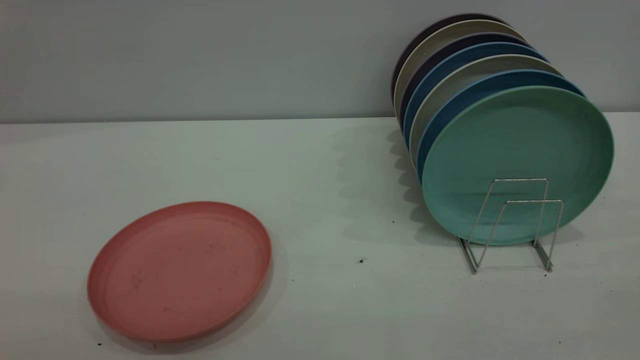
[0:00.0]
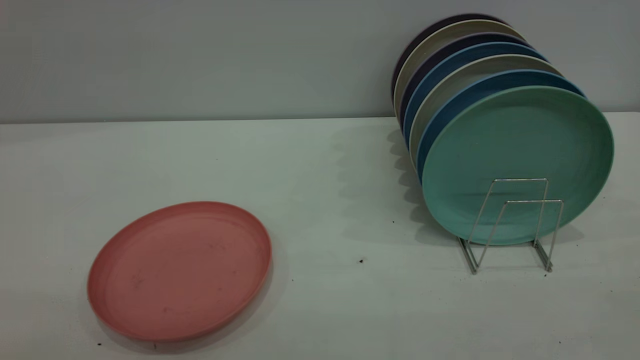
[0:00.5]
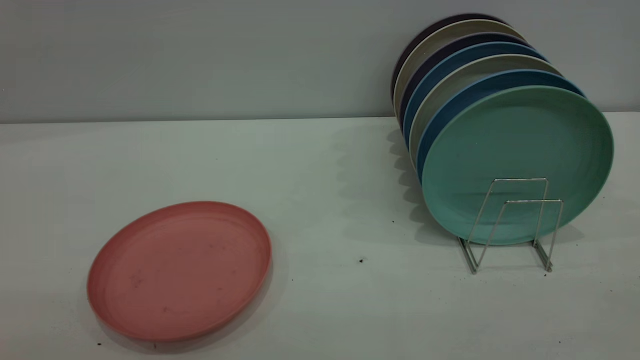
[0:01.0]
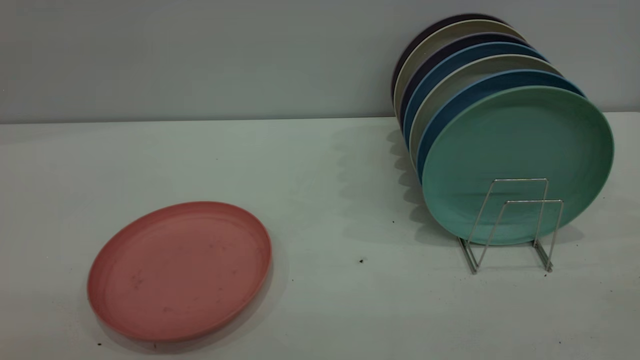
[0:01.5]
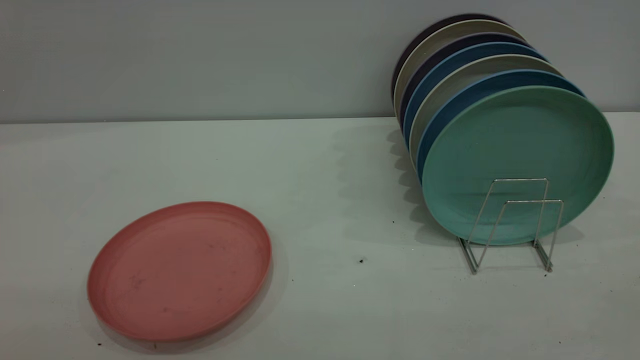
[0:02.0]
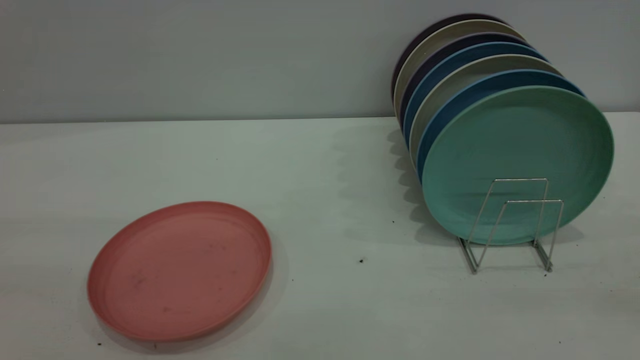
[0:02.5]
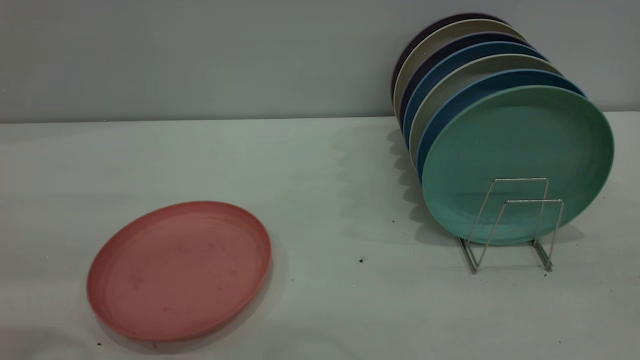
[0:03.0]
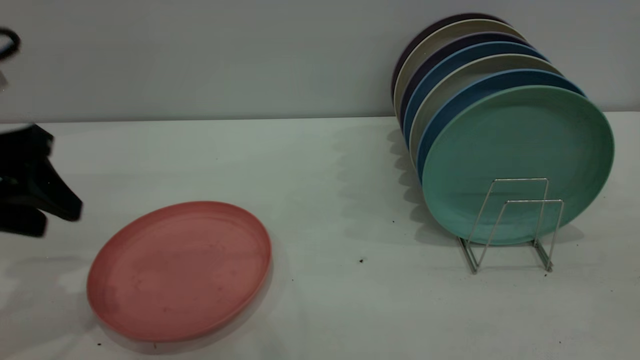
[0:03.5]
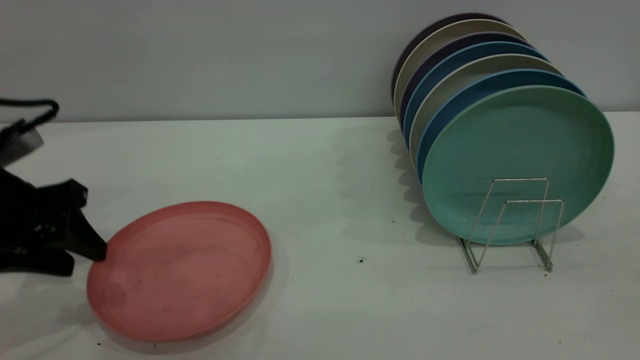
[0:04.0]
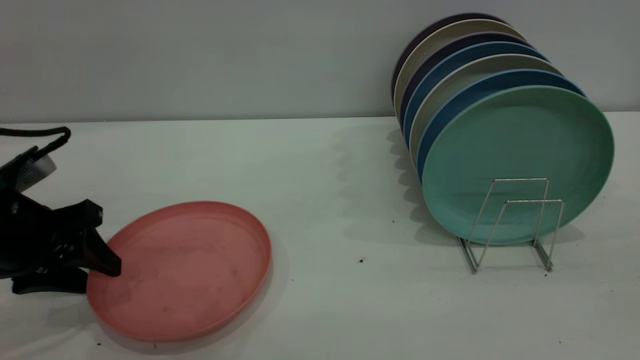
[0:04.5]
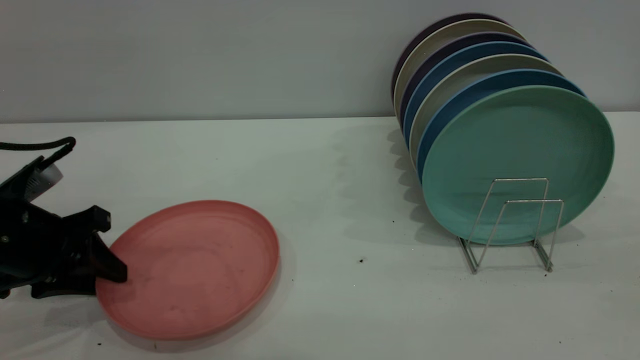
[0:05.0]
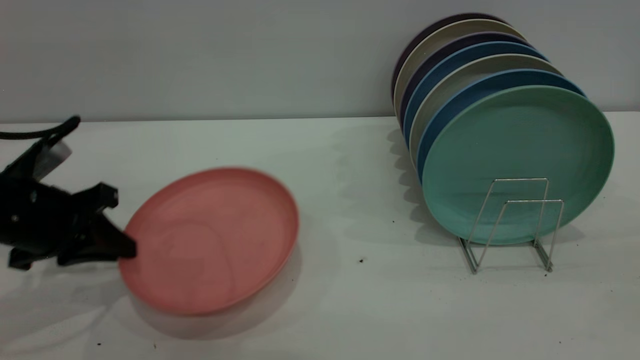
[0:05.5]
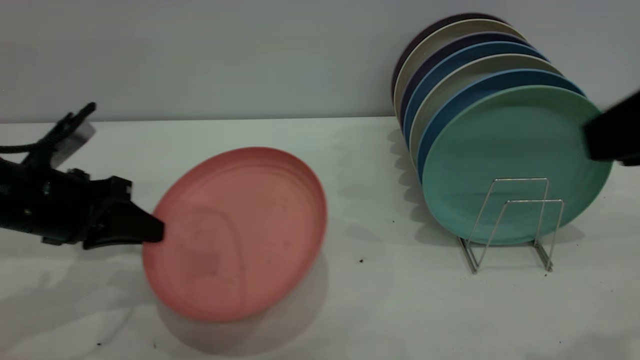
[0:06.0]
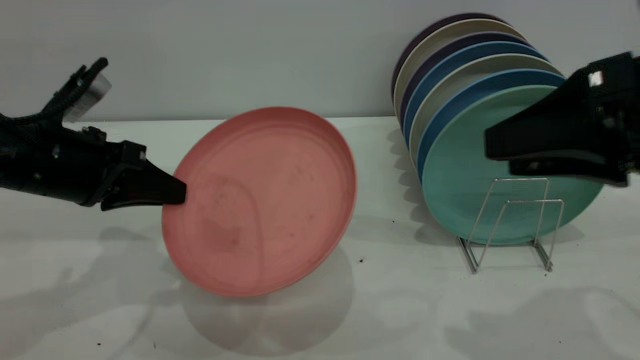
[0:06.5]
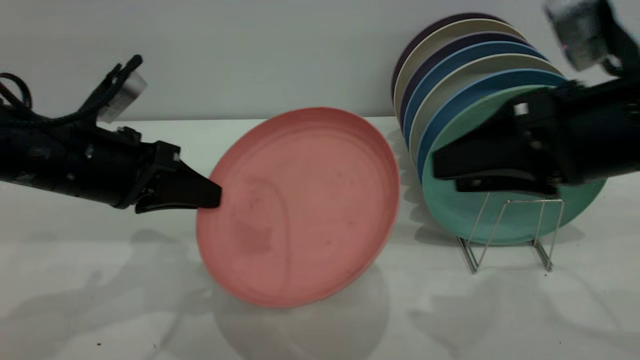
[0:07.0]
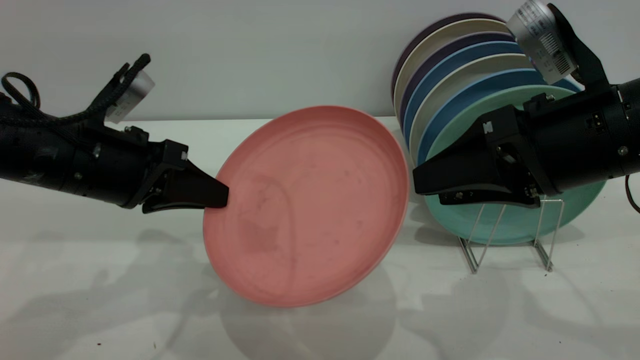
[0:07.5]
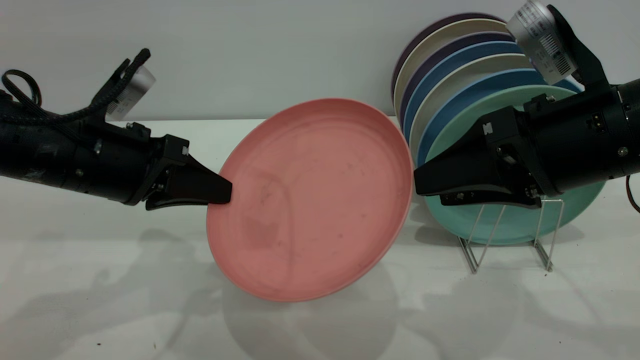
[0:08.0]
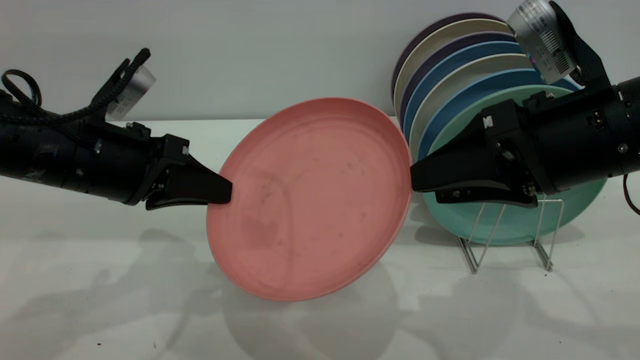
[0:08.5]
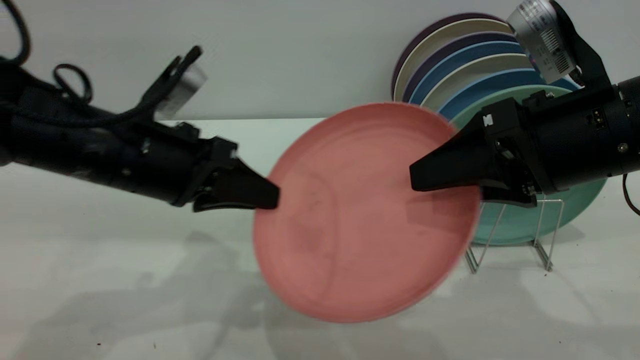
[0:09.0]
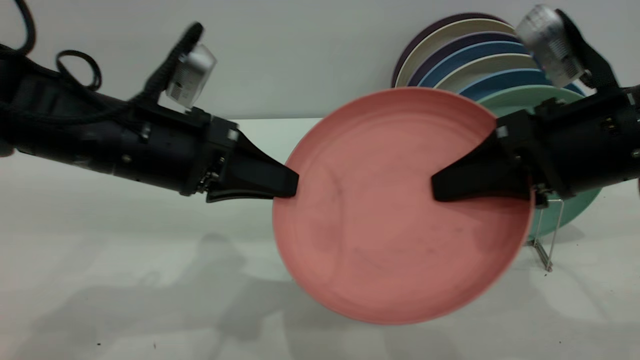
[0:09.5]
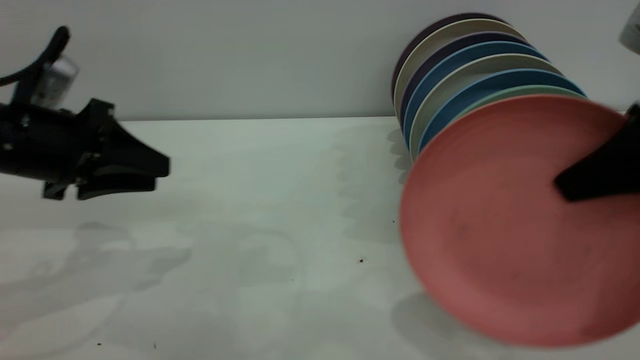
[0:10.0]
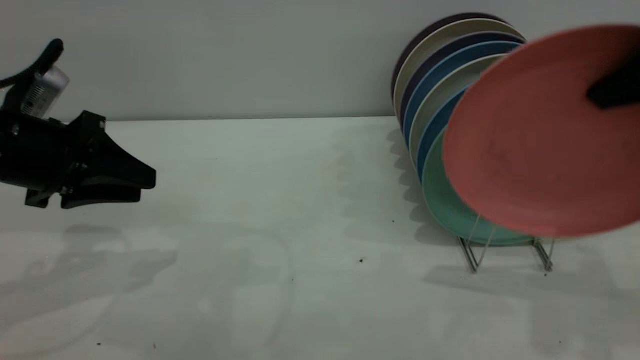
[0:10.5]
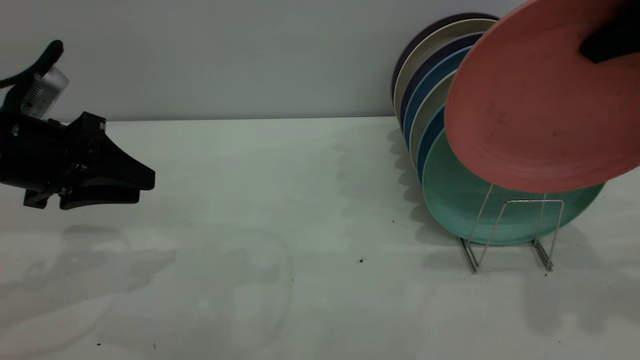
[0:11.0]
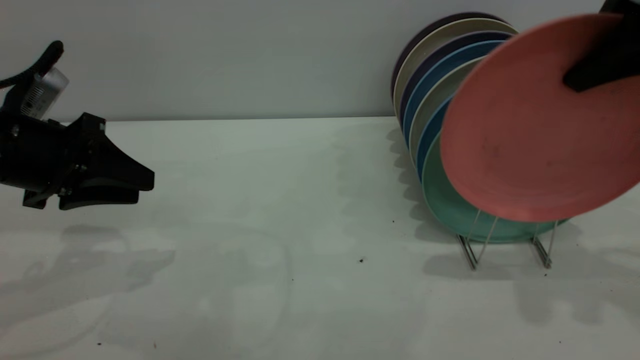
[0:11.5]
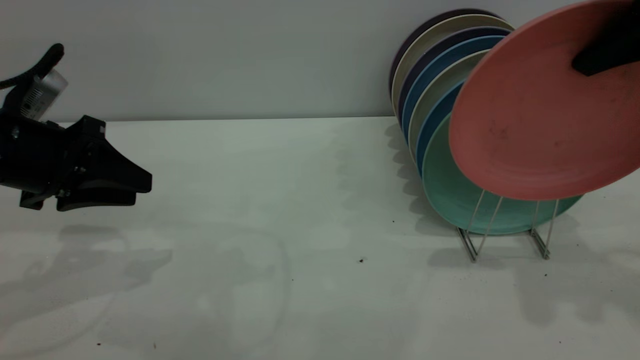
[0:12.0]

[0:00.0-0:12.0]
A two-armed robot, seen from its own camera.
Task of the whole recording: put the plate on the plate rack.
Step, 0:00.0 to 0:05.5: Pick up the plate with the left gripper.
Step, 0:06.0 to 0:09.5: Pass the plate from the left gripper to the right gripper.
0:00.0 to 0:02.0: Both grippers stay about where they are.
0:02.0 to 0:04.0: The left gripper shifts roughly 35 cm forward and downward.
0:04.0 to 0:06.0: The right gripper shifts some 5 cm forward. The left gripper closes.
0:06.0 to 0:08.0: The left gripper travels to the right by some 5 cm, while the right gripper shifts approximately 15 cm downward, forward and to the left.
0:08.0 to 0:10.0: The right gripper travels to the right by approximately 10 cm, and closes its fingers, while the left gripper is displaced to the left by some 5 cm, and opens.
0:10.0 to 0:12.0: The right gripper shifts roughly 10 cm upward and forward.

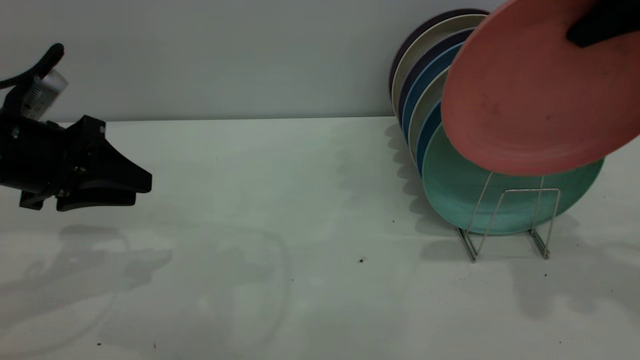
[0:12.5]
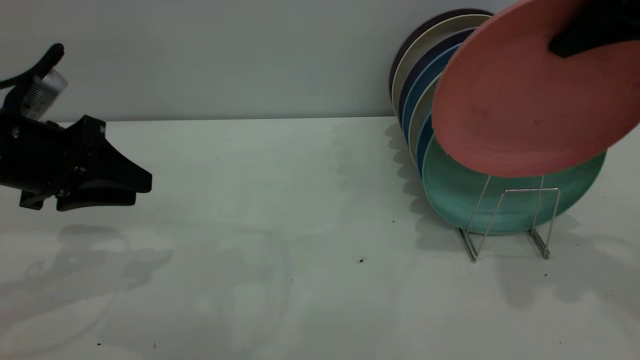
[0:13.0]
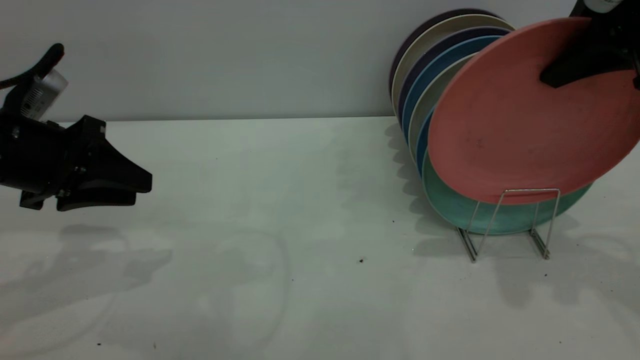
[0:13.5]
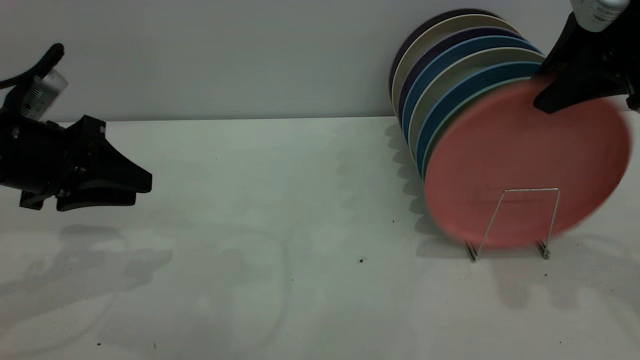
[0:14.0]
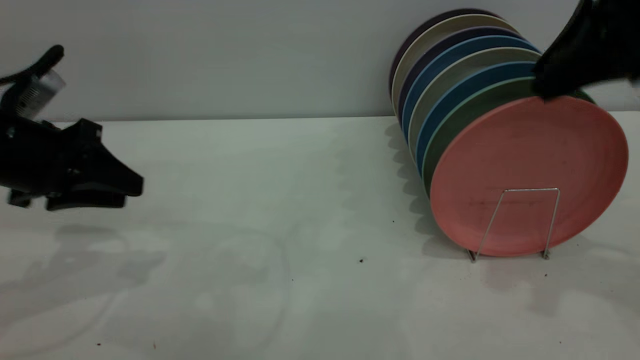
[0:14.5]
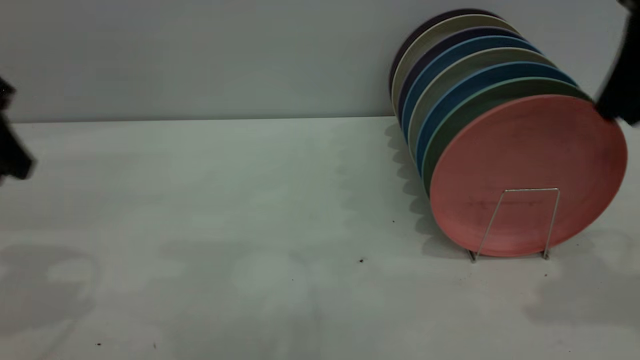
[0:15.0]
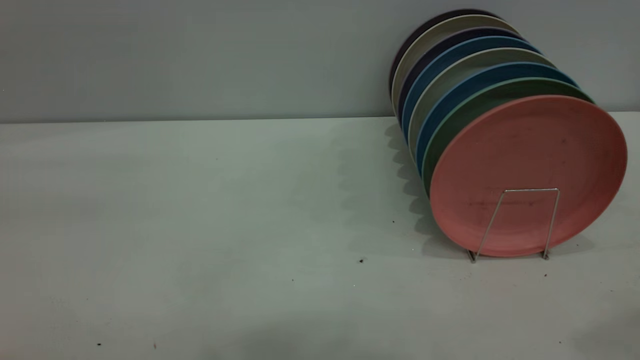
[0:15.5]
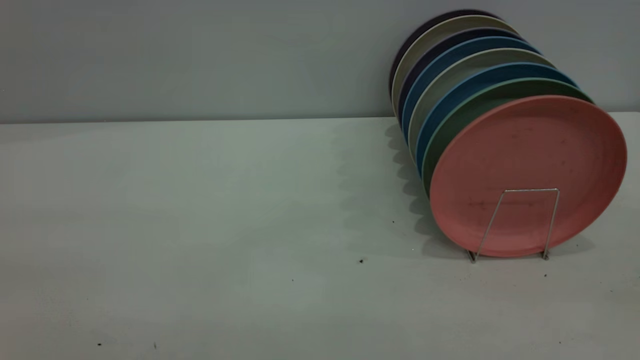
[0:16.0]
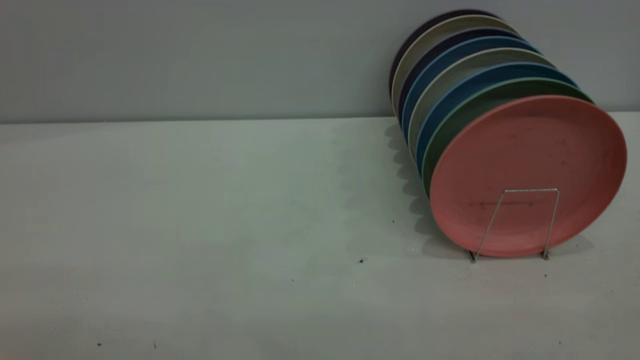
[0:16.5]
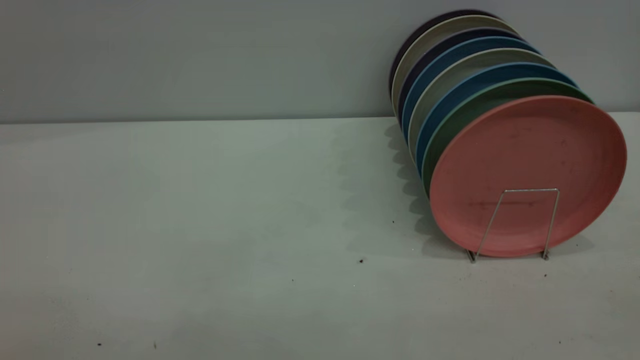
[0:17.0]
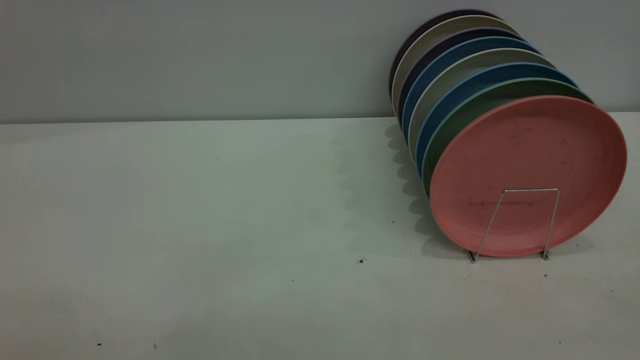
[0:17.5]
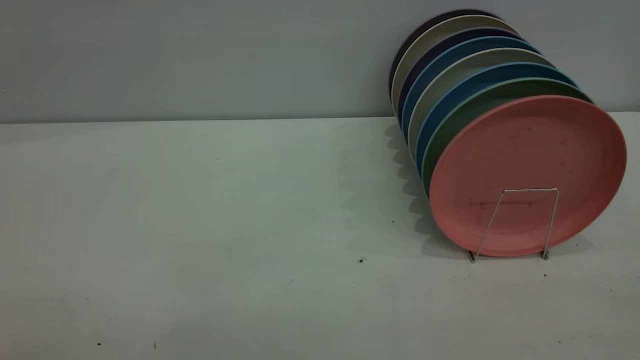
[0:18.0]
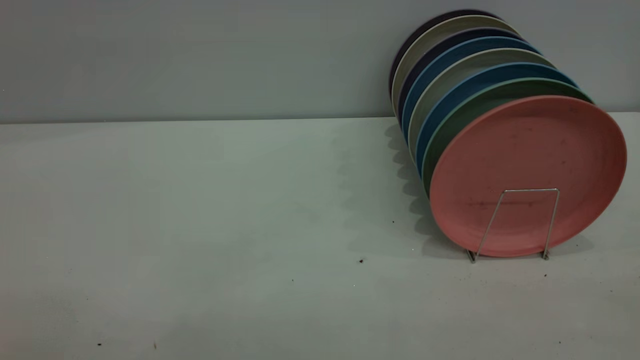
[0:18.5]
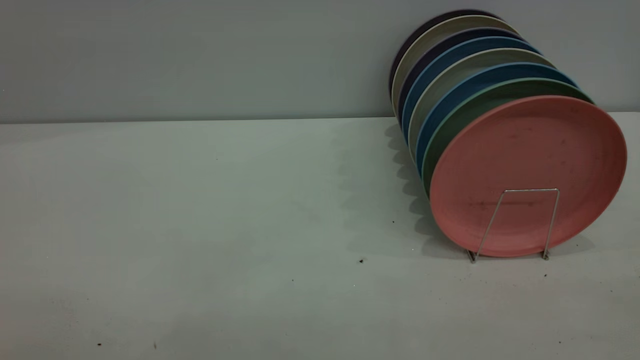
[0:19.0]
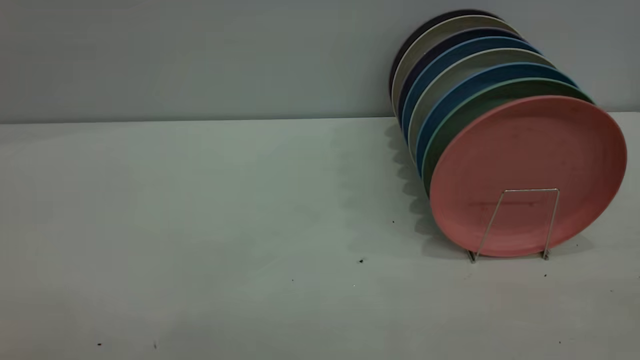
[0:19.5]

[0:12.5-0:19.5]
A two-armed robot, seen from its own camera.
Task of the whole recording: put the plate on the plate rack.
Step, 0:12.5 to 0:15.0: Place the plate on the shelf.
0:12.5 to 0:14.5: The right gripper opens up.
0:14.5 to 0:16.0: The left gripper shifts approximately 40 cm backward and upward; the right gripper goes roughly 30 cm backward, and opens.
0:17.5 to 0:19.5: Both grippers stay about where they are.

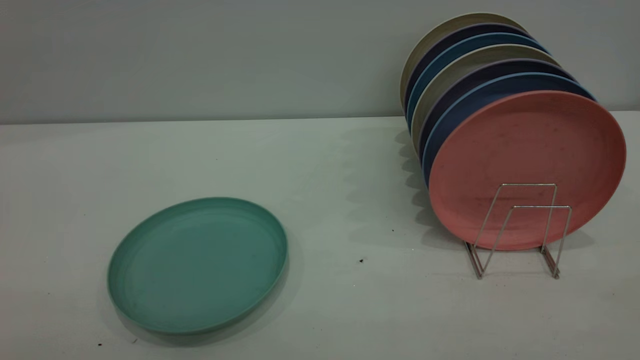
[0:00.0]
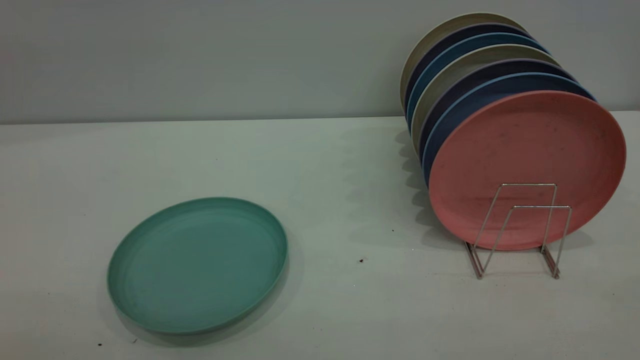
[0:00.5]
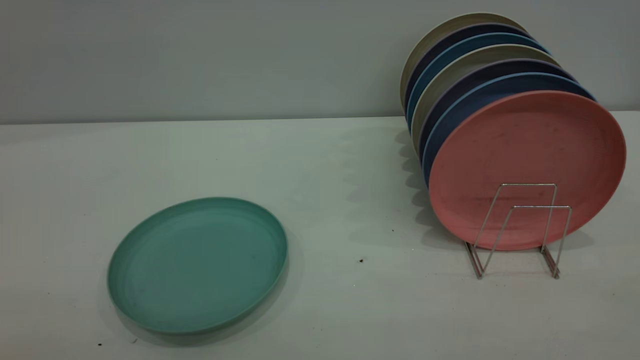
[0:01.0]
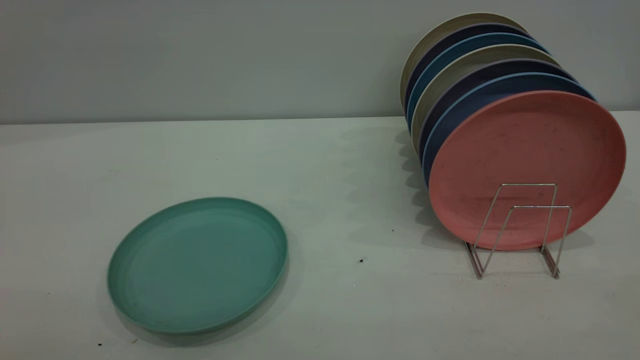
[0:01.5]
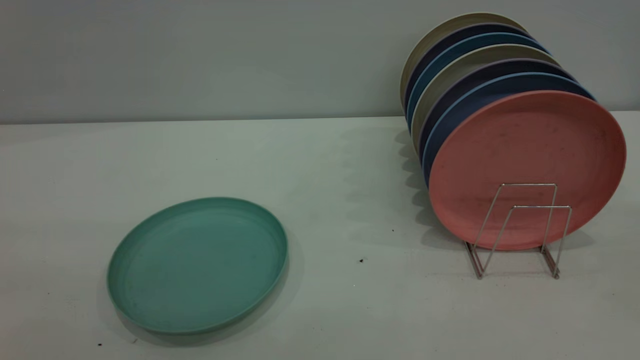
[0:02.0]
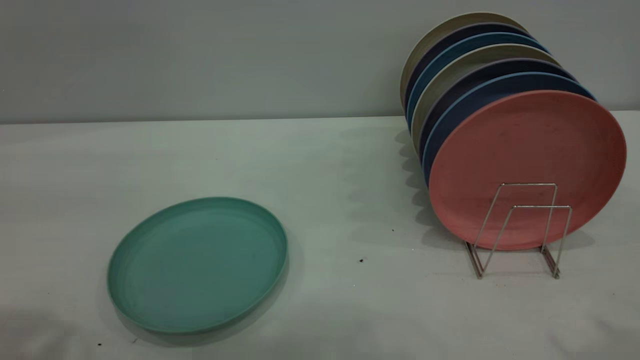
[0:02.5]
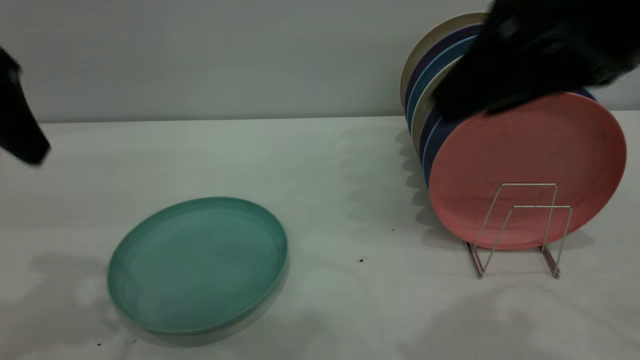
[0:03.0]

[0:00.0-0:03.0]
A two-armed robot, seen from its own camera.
Task of the whole recording: the left gripper grasp the green plate, the left gripper pass the green plate to the right gripper, and the right gripper place the green plate on the plate rack.
0:00.0 to 0:01.5: Both grippers stay about where they are.
0:01.5 to 0:03.0: The left gripper moves forward, some 30 cm, while the right gripper travels forward and to the left by roughly 30 cm.
